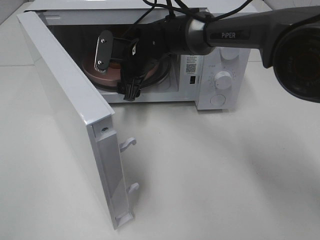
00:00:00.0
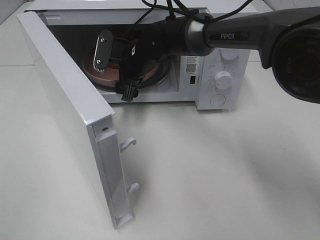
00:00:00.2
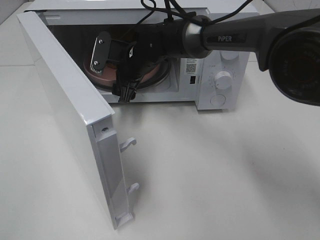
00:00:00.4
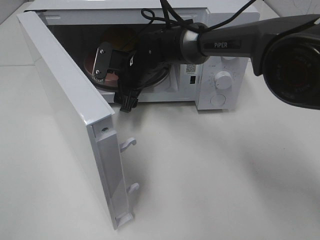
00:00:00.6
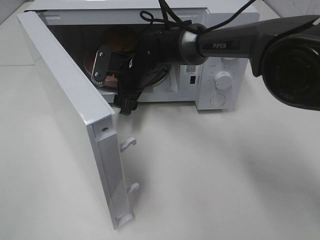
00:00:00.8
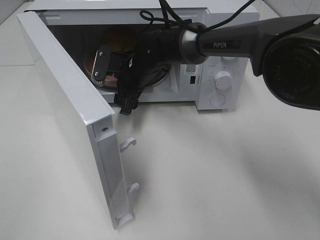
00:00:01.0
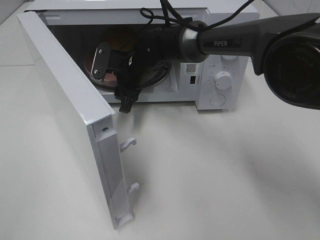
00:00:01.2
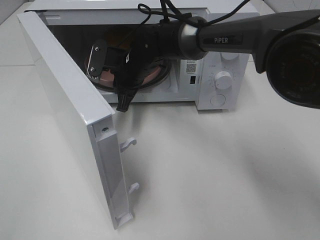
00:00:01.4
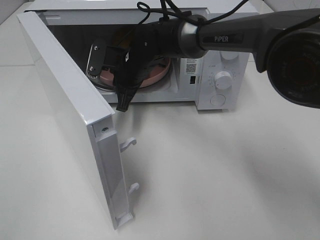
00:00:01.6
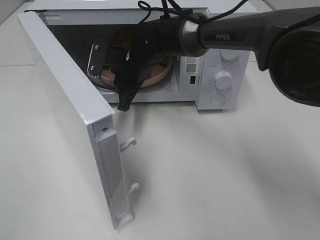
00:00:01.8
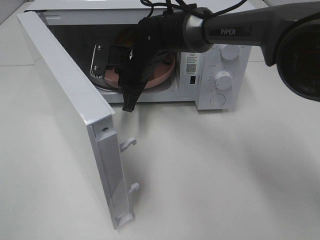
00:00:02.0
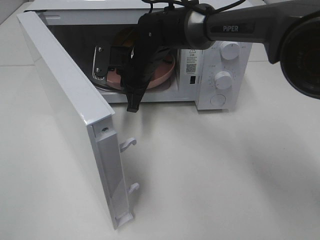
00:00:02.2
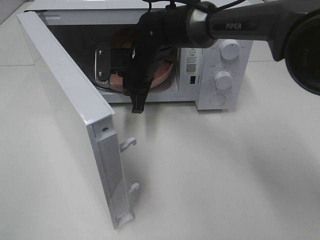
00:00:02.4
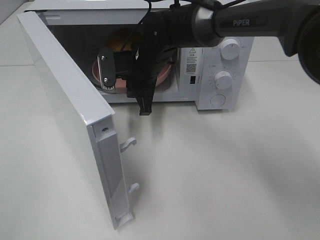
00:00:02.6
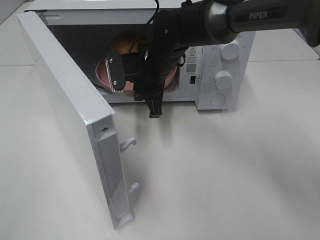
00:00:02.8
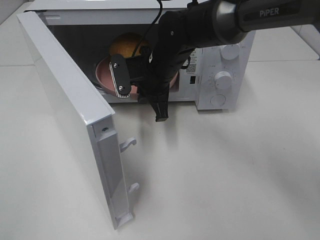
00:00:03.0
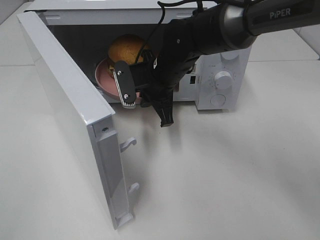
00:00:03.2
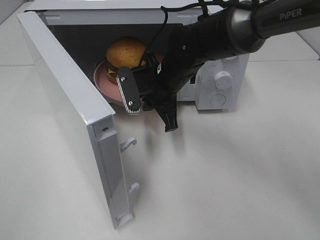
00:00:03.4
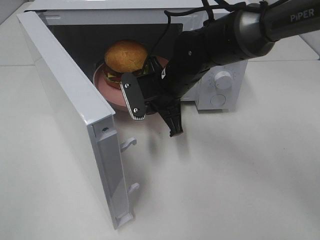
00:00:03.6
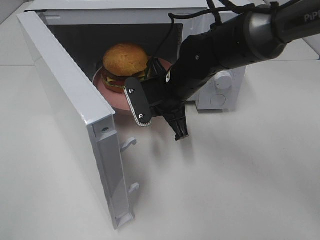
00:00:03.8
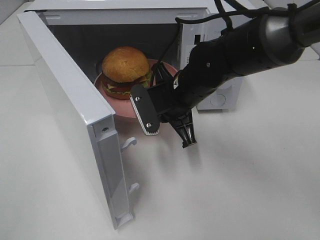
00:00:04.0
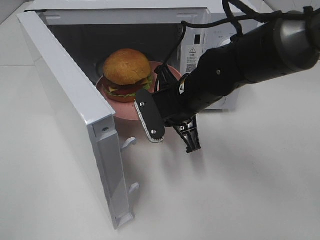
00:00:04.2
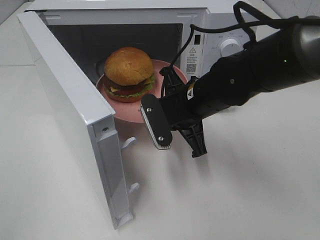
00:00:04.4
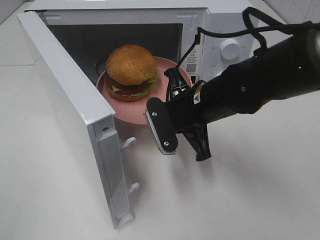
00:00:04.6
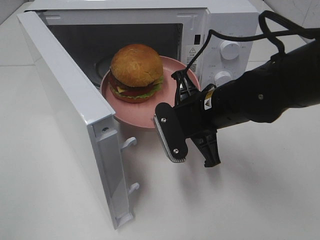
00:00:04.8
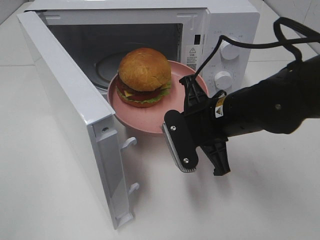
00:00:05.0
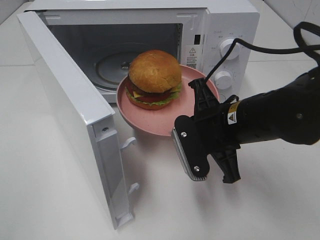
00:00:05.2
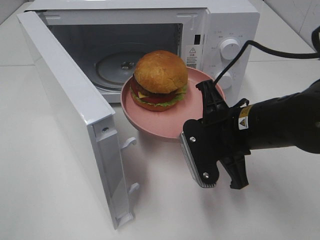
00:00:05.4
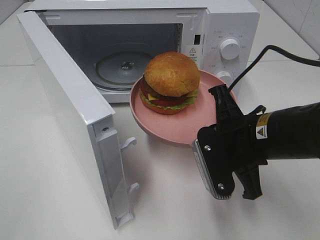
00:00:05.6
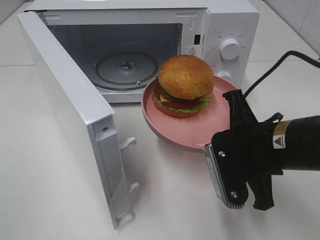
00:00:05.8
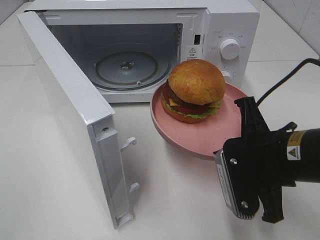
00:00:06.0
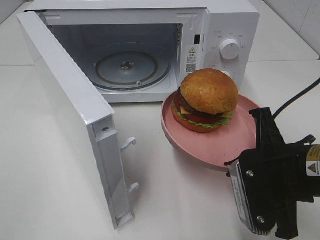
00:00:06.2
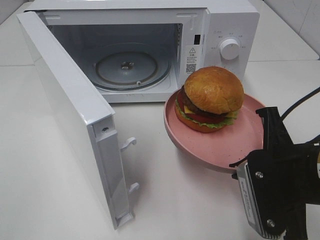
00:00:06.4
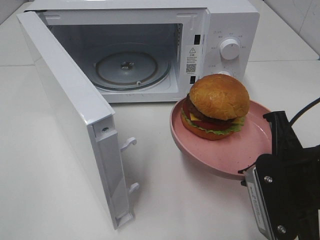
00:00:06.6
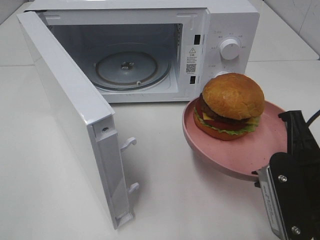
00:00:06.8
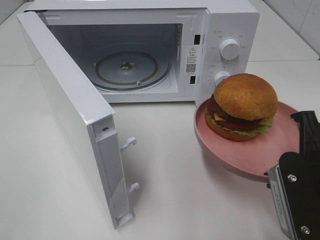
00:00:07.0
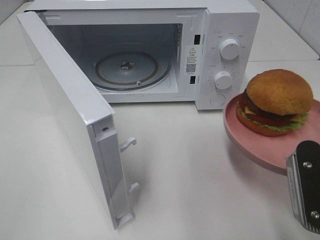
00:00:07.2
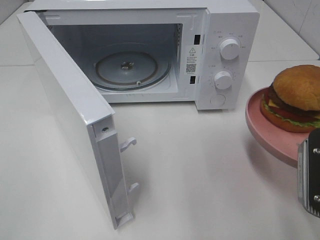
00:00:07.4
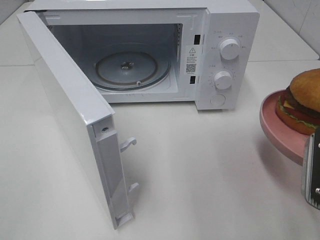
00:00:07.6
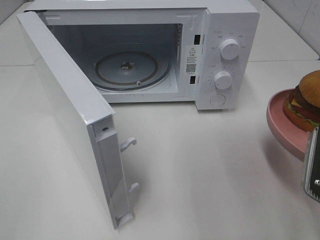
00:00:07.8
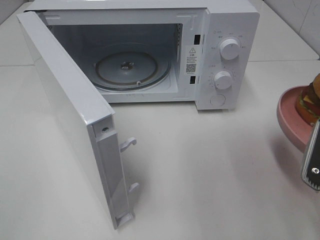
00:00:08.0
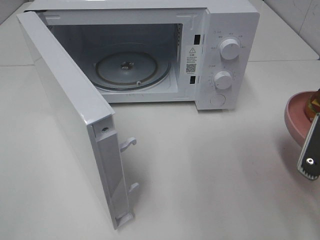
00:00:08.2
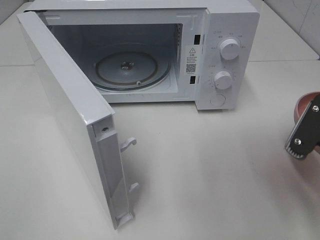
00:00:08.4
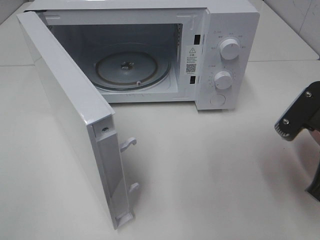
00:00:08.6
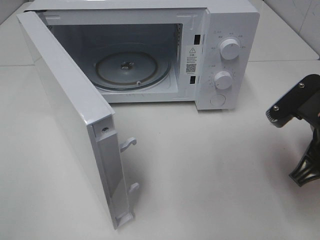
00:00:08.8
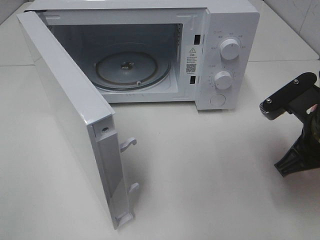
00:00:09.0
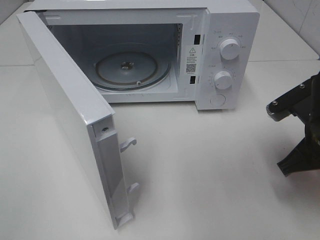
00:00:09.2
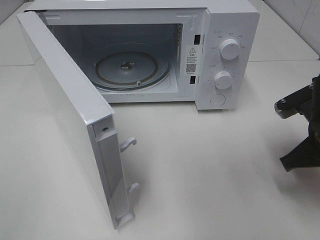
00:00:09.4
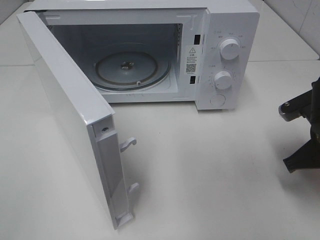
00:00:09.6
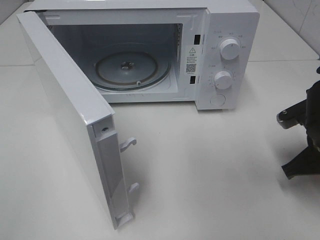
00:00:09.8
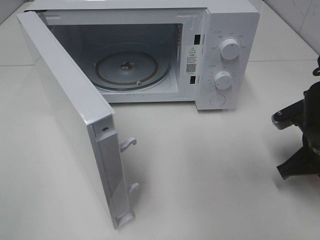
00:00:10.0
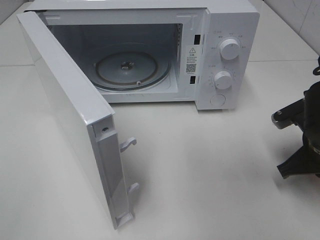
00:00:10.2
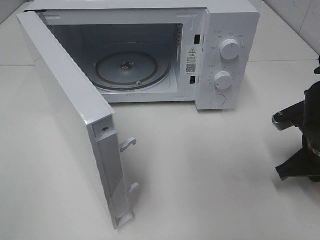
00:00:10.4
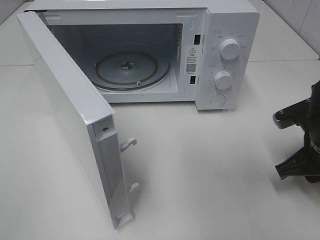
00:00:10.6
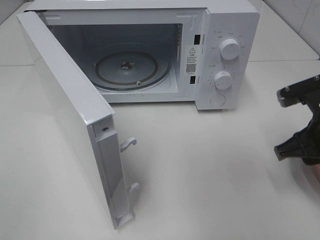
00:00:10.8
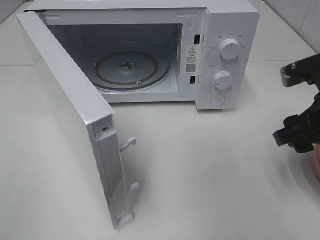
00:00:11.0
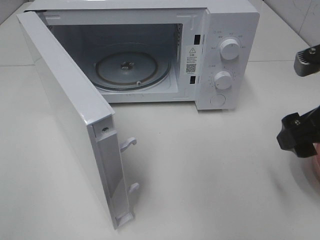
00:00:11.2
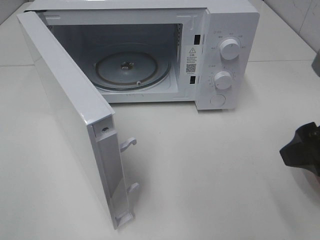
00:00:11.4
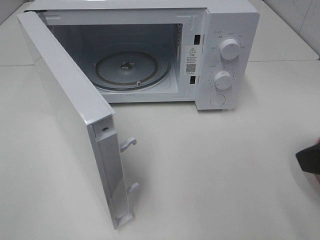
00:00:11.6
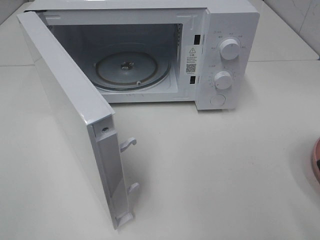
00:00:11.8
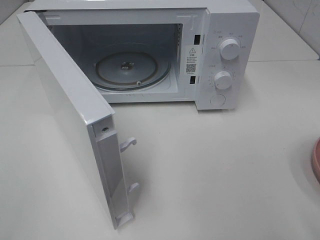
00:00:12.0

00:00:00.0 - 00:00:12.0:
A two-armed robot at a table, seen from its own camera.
Task of the whole recording: Heat the burger.
Step, 00:00:01.6 - 00:00:10.2: Right hand: place the plate on the table.
00:00:00.0 - 00:00:01.6: The right gripper closes.
00:00:01.6 - 00:00:03.0: The right gripper moves about 5 cm.
00:00:03.0 - 00:00:04.4: The right gripper is displaced backward and to the right by approximately 10 cm.
00:00:04.4 - 00:00:06.0: The right gripper moves backward and to the right, about 15 cm.
00:00:06.0 - 00:00:07.6: The right gripper is displaced to the right and backward by roughly 10 cm.
00:00:07.6 - 00:00:09.0: The right gripper heads forward, covering about 10 cm.
00:00:09.0 - 00:00:10.4: The right gripper shifts about 5 cm downward.
00:00:10.4 - 00:00:12.0: The right gripper shifts approximately 25 cm upward and backward, and opens.

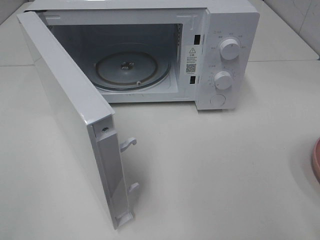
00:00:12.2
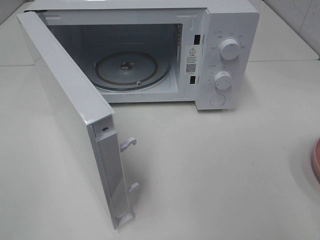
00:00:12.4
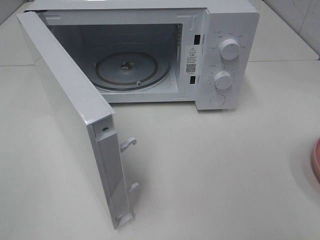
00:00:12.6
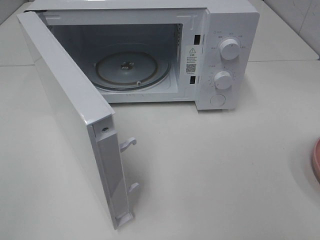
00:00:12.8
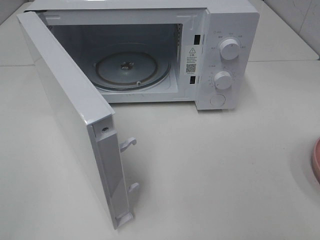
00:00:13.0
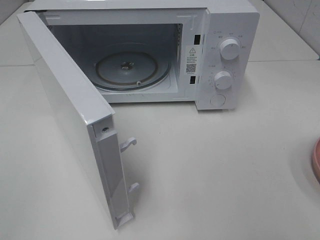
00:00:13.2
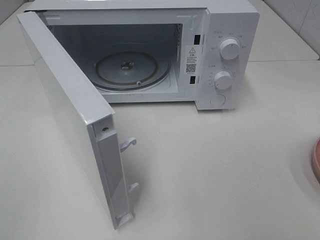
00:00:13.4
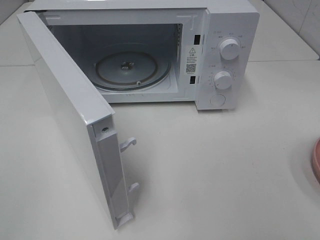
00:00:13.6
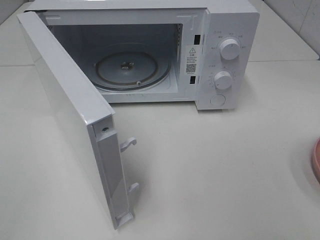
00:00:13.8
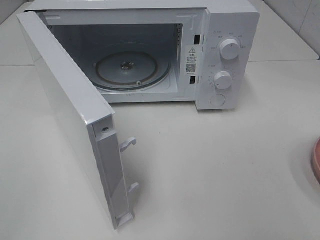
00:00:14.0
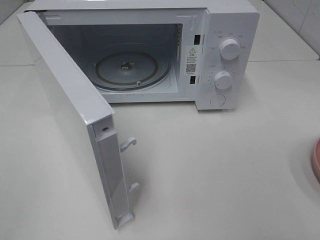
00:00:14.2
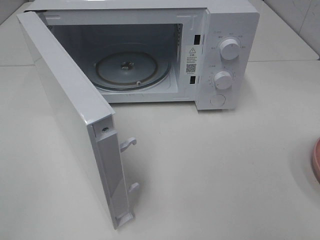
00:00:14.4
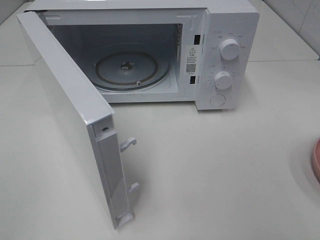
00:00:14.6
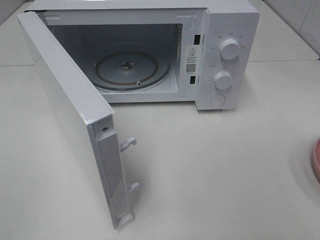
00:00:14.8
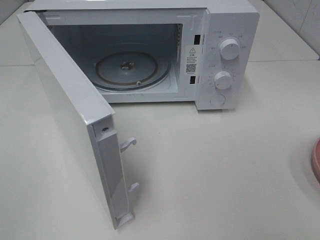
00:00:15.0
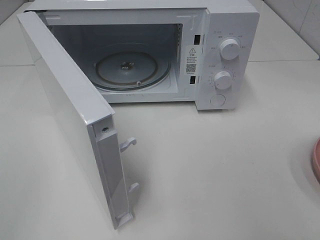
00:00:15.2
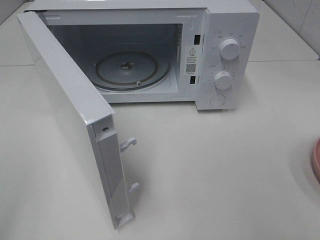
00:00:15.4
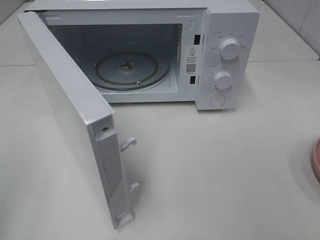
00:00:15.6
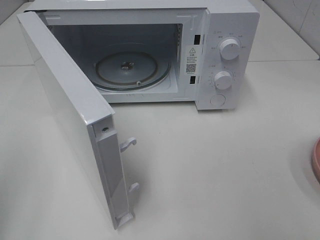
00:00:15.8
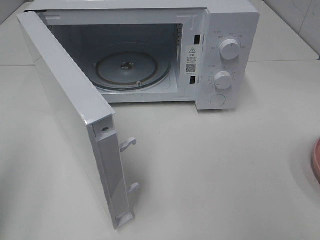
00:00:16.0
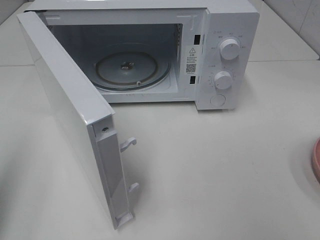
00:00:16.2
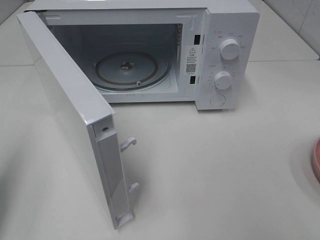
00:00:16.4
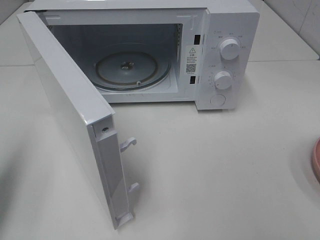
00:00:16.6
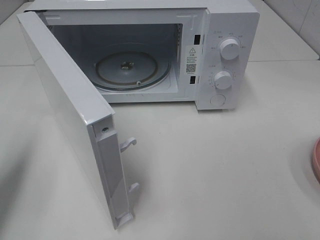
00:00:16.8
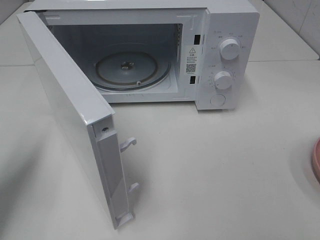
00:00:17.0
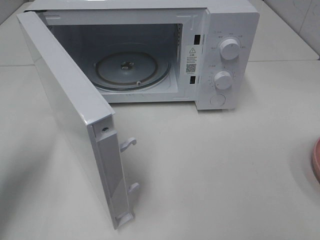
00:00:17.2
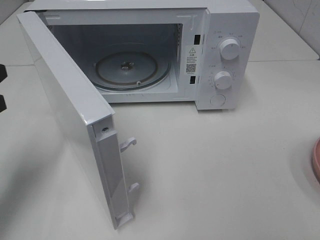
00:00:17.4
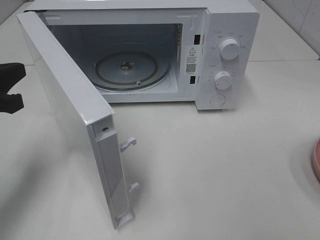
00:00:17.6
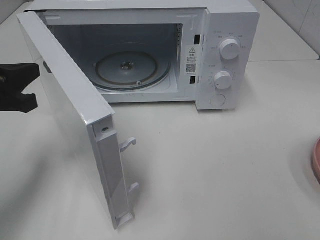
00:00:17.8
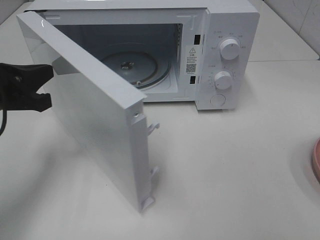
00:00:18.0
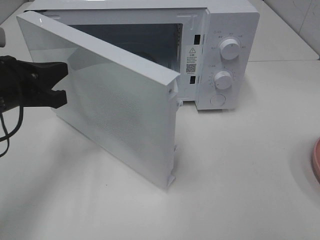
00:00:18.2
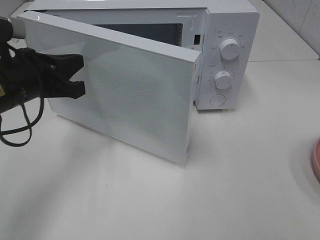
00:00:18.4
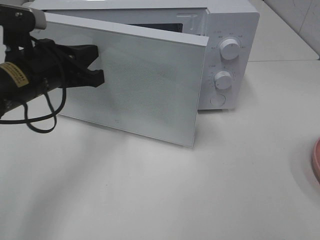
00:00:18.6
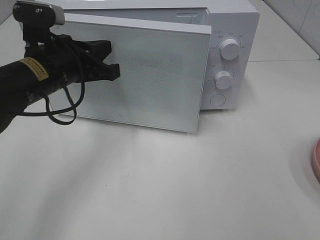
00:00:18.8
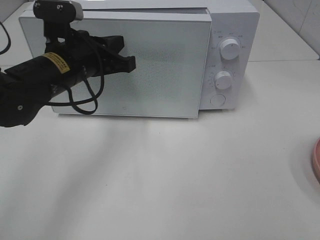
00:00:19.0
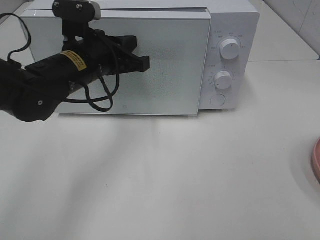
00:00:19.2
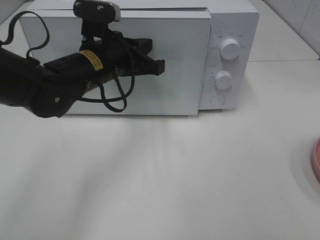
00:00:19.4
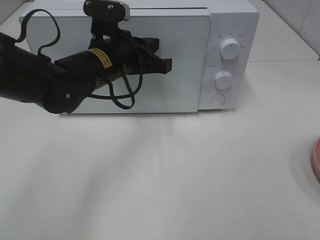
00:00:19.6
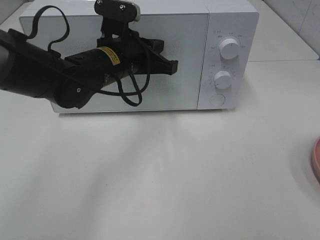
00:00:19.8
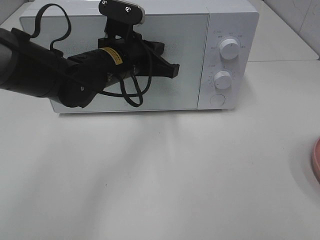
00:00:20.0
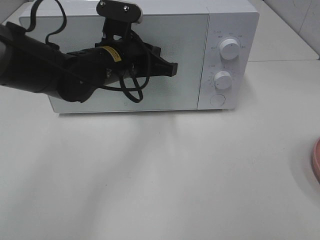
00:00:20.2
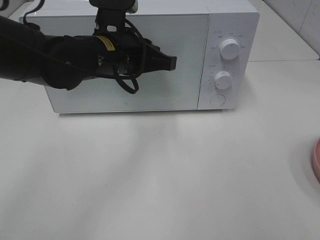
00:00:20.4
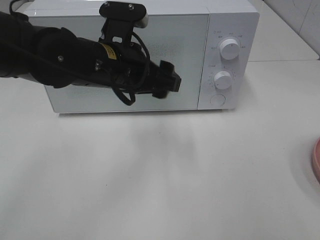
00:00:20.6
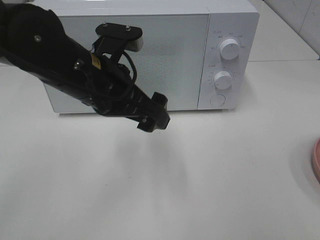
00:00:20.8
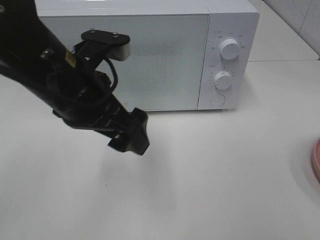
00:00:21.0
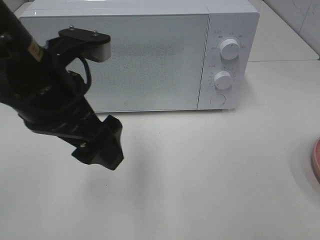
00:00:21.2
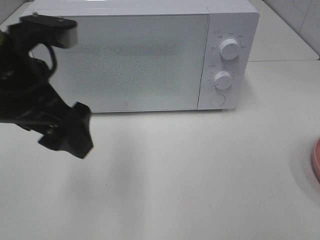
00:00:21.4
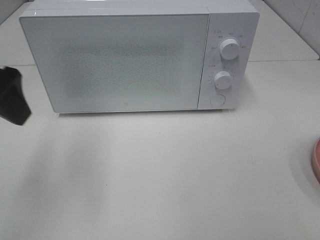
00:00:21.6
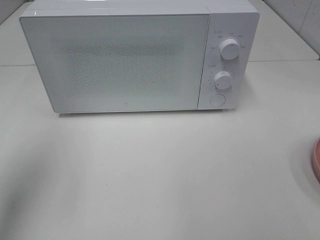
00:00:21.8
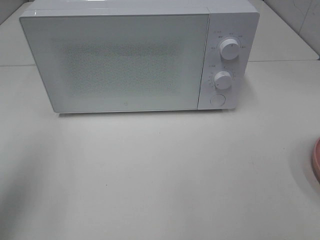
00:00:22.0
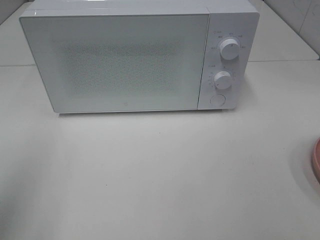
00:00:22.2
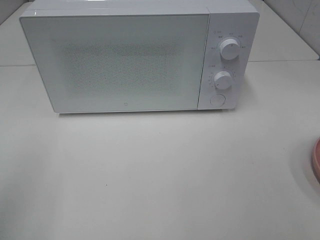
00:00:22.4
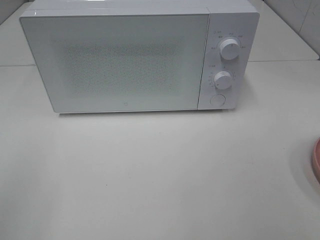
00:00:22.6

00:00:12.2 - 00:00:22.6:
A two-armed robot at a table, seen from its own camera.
Task of the whole recording: Heat the burger.
Step, 00:00:12.2 - 00:00:20.0: Left hand: close the microwave door.
00:00:15.2 - 00:00:16.6: The left gripper is displaced forward and downward by some 15 cm, and closes its fingers.
00:00:16.6 - 00:00:18.2: The left gripper goes roughly 15 cm to the right and forward.
00:00:18.2 - 00:00:19.6: The left gripper shifts about 15 cm to the right and forward.
00:00:19.6 - 00:00:21.2: The left gripper is displaced backward and upward by about 15 cm, and opens up.
00:00:21.2 - 00:00:22.6: The left gripper is displaced to the left and backward by about 25 cm.
